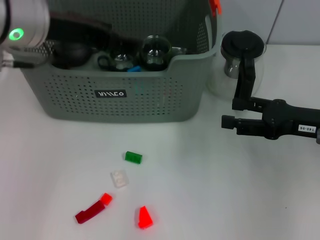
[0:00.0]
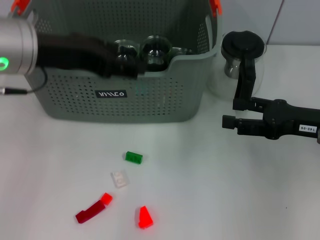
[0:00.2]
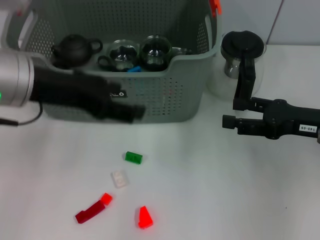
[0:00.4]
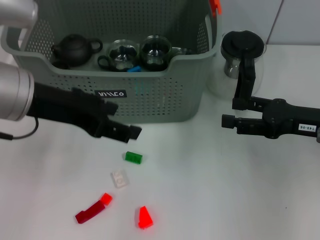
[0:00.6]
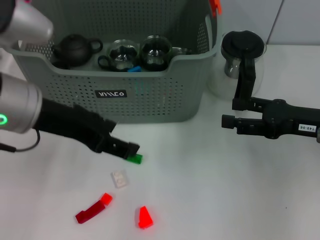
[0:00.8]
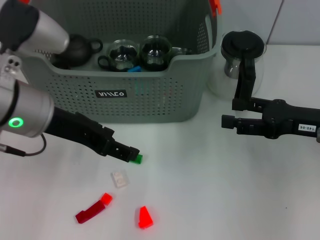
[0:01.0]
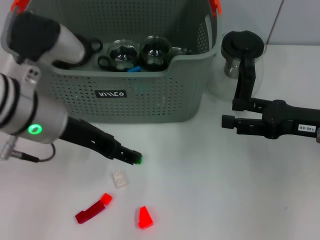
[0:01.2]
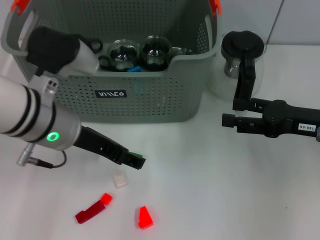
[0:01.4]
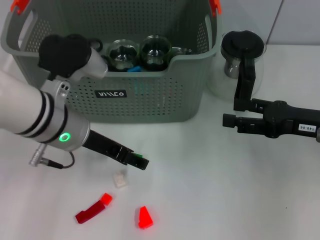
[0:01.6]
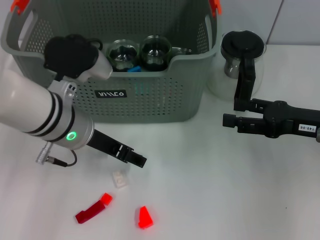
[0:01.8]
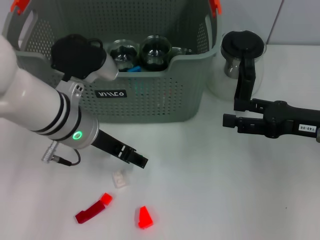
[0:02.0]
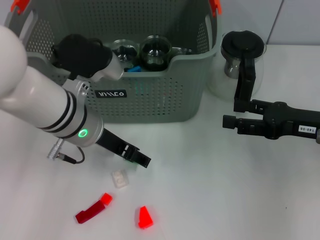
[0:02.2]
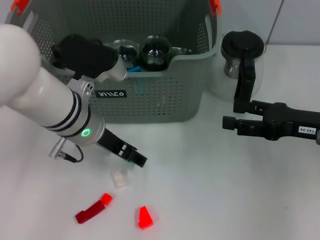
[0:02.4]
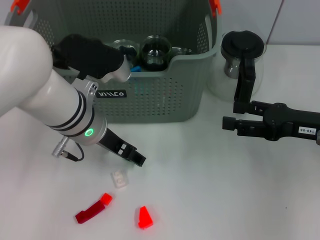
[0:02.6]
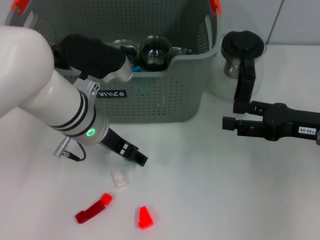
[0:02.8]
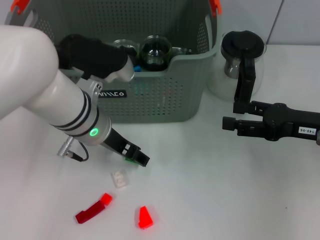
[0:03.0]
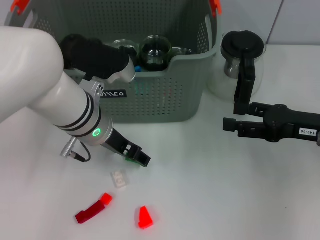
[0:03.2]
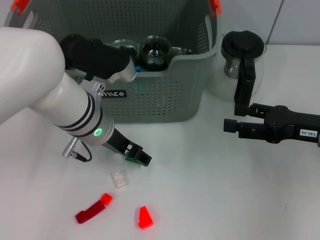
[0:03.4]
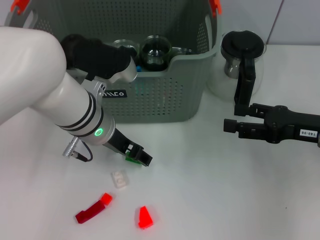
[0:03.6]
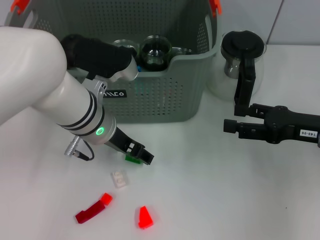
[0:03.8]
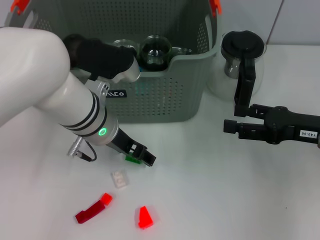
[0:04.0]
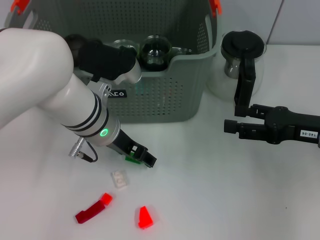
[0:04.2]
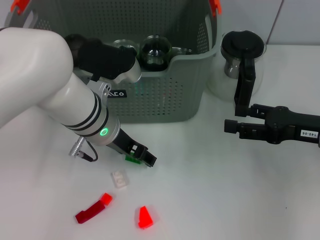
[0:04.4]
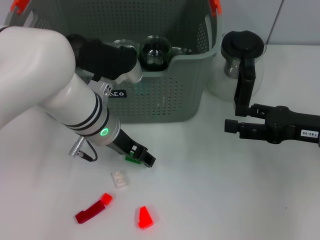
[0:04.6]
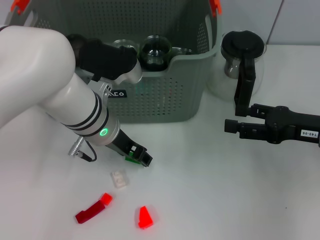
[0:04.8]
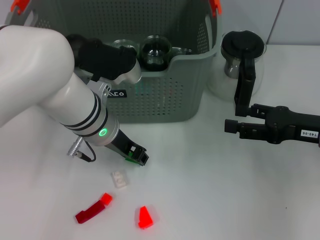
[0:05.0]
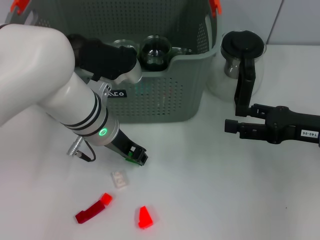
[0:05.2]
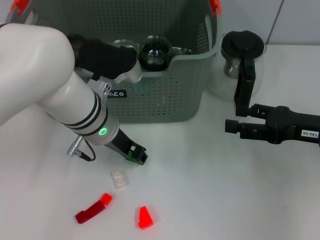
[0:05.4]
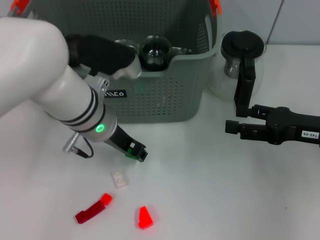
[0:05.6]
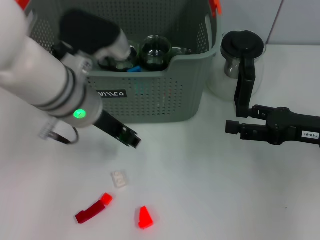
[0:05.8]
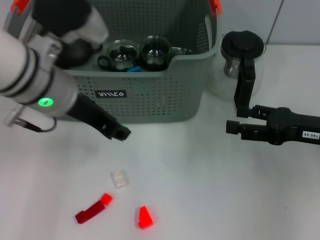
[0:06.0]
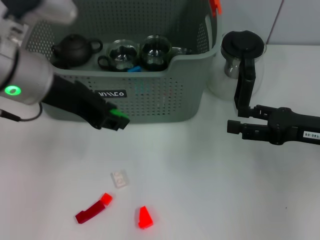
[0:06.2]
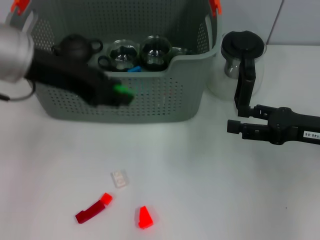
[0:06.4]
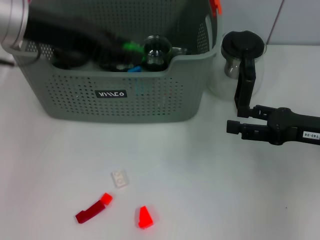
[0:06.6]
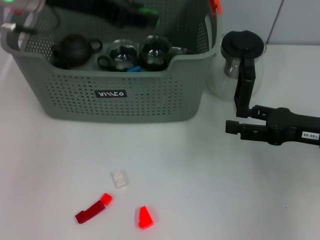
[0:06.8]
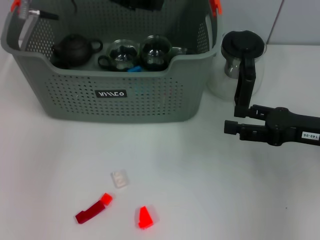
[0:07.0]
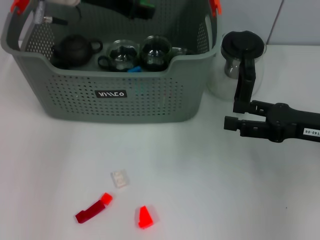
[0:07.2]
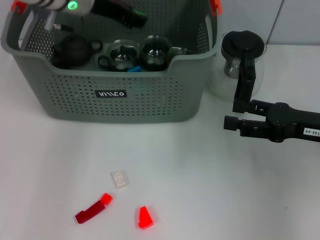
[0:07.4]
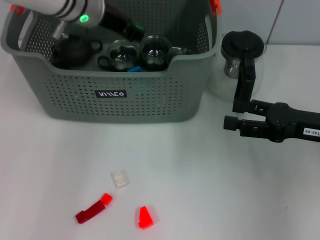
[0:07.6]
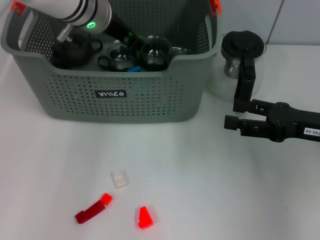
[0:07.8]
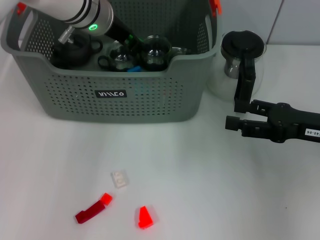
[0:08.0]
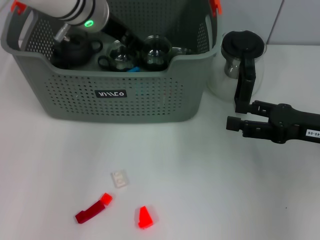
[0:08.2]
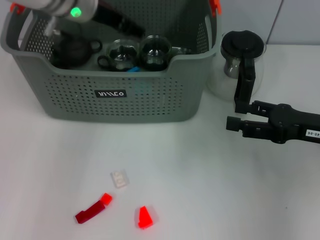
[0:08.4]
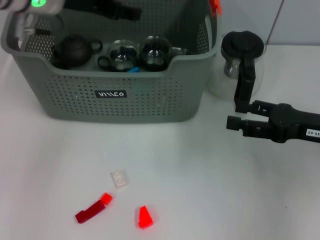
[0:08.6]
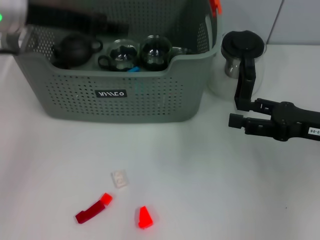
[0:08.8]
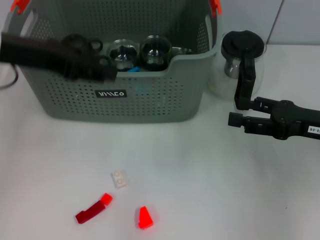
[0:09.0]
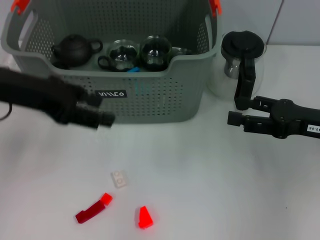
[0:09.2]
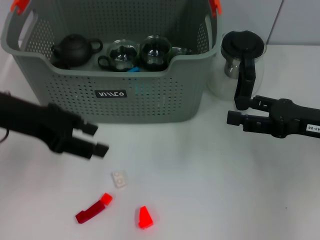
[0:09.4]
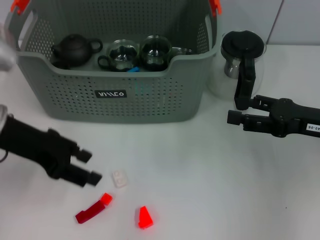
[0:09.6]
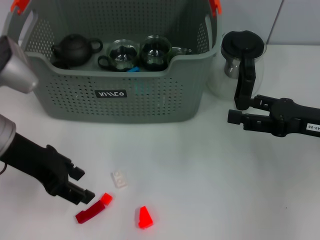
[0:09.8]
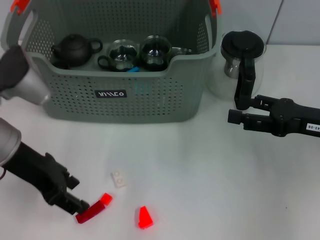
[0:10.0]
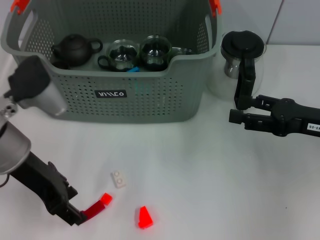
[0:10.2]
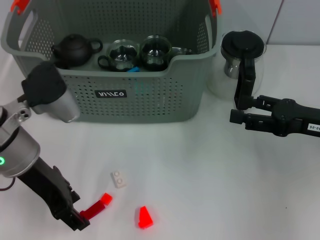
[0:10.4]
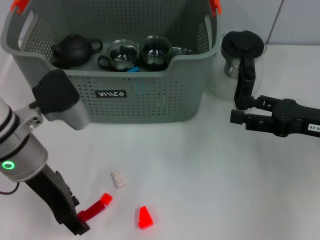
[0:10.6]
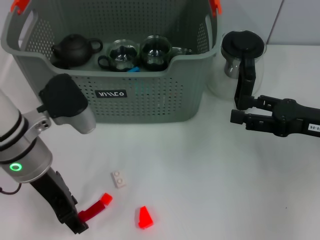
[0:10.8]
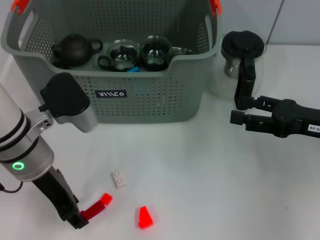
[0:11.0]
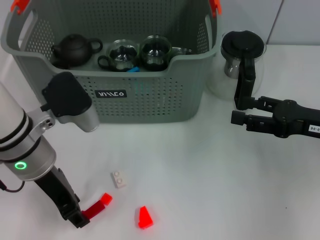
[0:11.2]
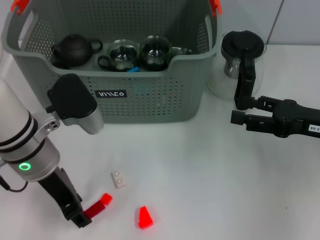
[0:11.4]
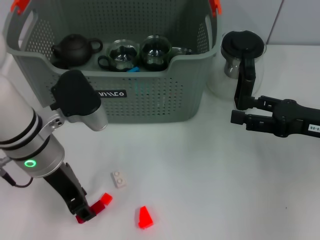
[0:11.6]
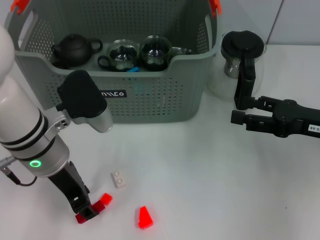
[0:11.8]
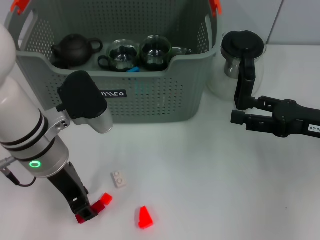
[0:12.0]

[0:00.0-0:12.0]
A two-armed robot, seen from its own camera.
Task of the whole recording: pick up the teacup on the table and place it into the storage bin, pick up the block on the table and place it into the storage bin.
0:00.0 to 0:01.6: The left gripper travels downward by approximately 10 cm.
0:01.6 to 0:04.4: The grippers make only small movements.
0:04.4 to 0:06.0: The left gripper is displaced upward by roughly 10 cm, and closes its fingers.
0:06.0 to 0:07.6: The left gripper heads forward, covering some 15 cm.
0:07.6 to 0:09.0: The left gripper heads backward and to the left, covering approximately 15 cm.
0:09.0 to 0:10.4: The left gripper is displaced downward by some 10 cm.
0:10.4 to 0:12.0: The grippers make only small movements.

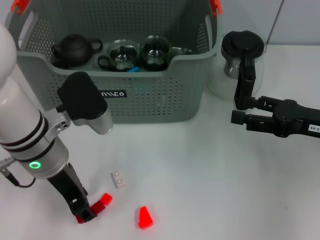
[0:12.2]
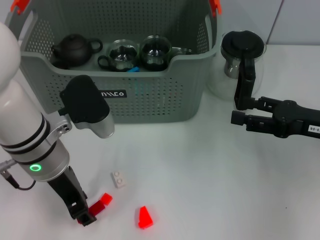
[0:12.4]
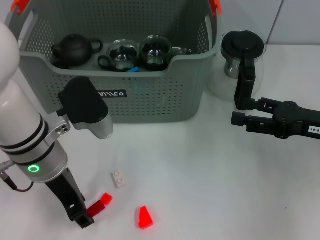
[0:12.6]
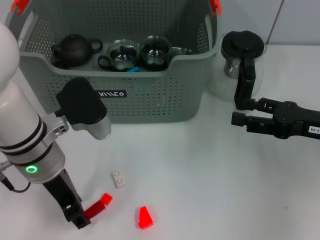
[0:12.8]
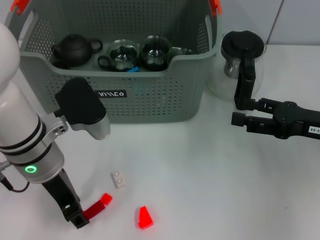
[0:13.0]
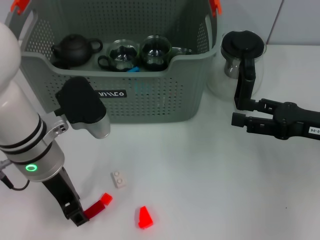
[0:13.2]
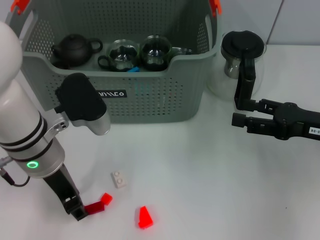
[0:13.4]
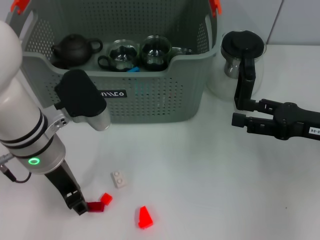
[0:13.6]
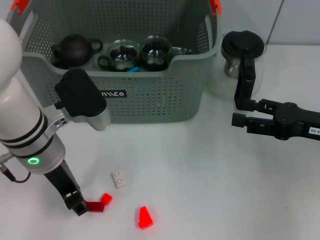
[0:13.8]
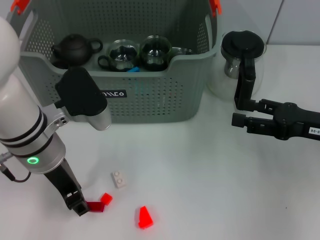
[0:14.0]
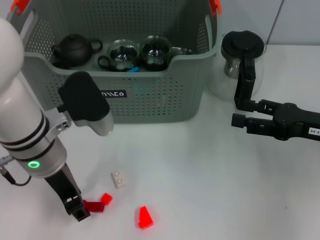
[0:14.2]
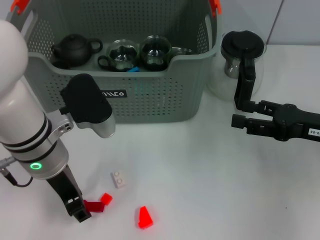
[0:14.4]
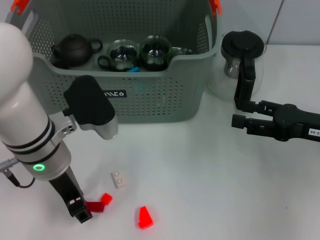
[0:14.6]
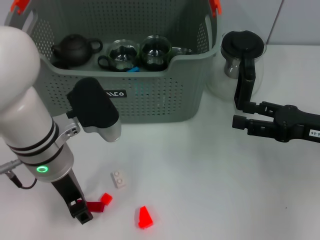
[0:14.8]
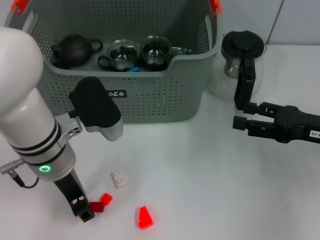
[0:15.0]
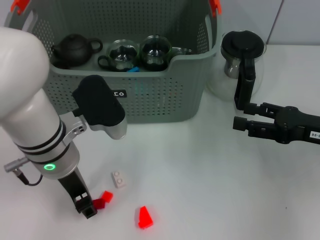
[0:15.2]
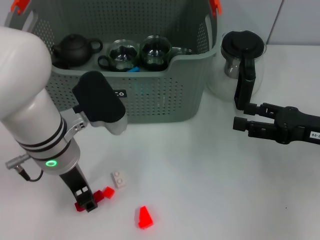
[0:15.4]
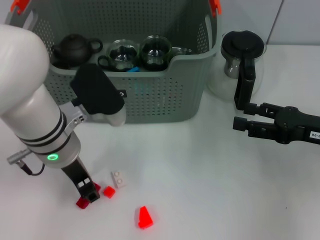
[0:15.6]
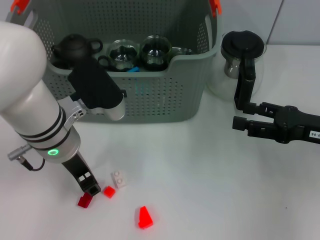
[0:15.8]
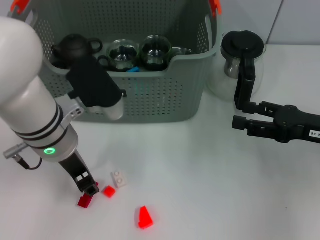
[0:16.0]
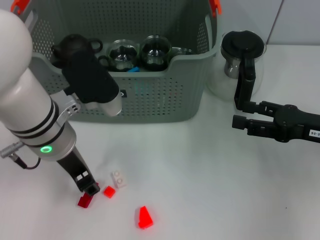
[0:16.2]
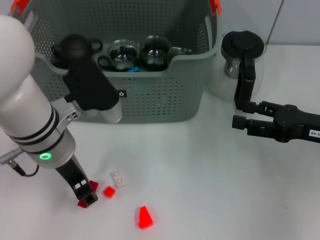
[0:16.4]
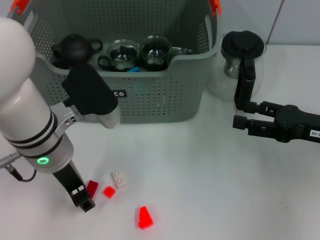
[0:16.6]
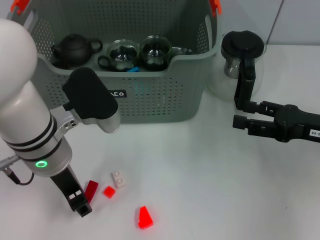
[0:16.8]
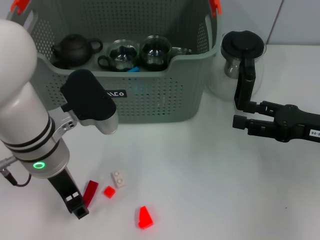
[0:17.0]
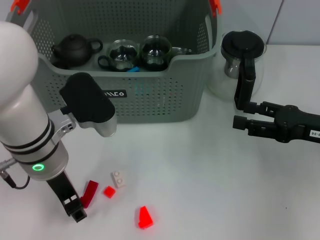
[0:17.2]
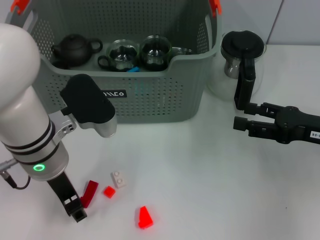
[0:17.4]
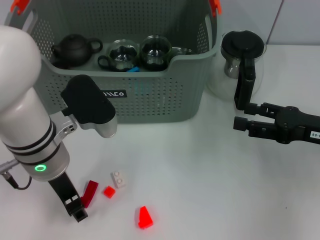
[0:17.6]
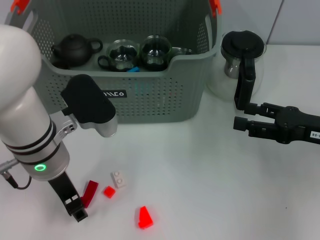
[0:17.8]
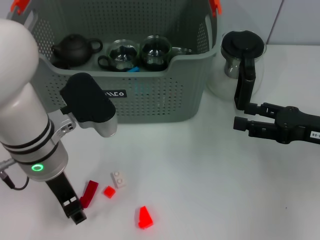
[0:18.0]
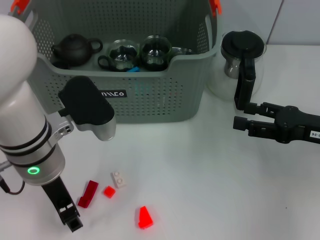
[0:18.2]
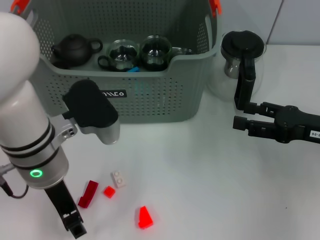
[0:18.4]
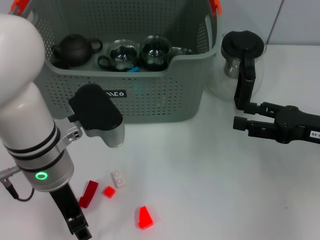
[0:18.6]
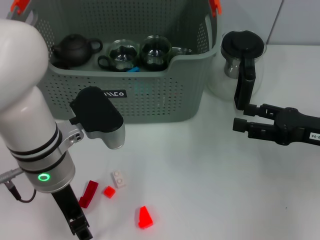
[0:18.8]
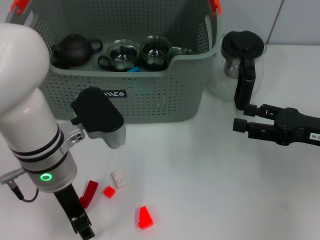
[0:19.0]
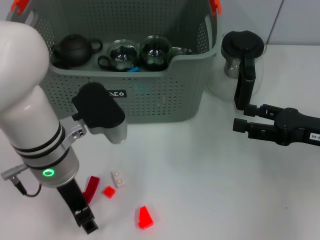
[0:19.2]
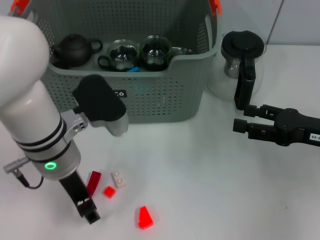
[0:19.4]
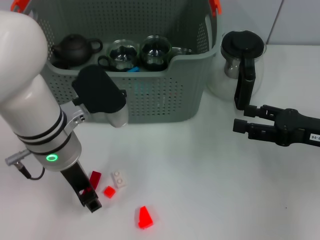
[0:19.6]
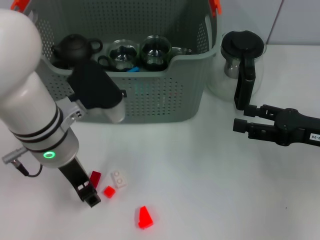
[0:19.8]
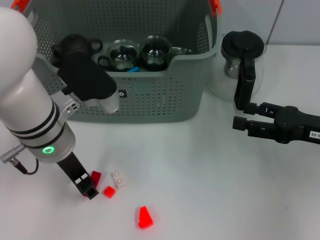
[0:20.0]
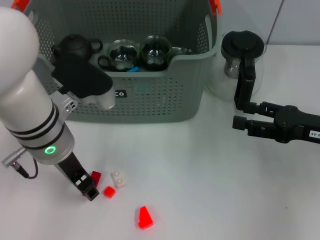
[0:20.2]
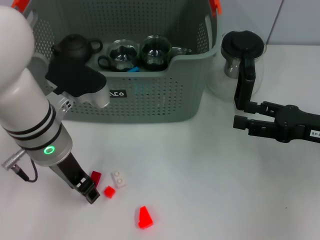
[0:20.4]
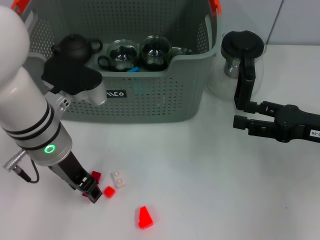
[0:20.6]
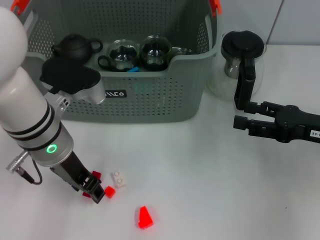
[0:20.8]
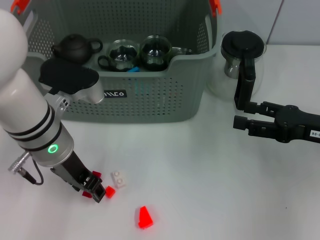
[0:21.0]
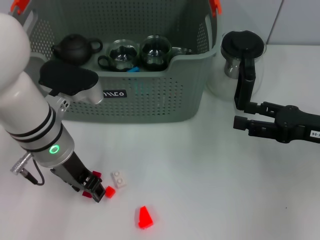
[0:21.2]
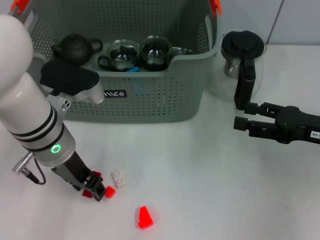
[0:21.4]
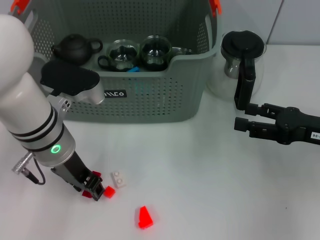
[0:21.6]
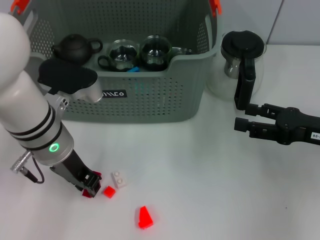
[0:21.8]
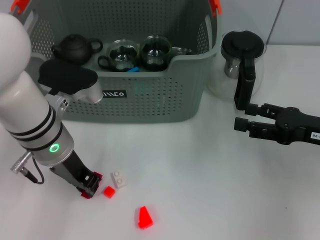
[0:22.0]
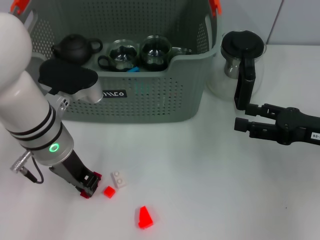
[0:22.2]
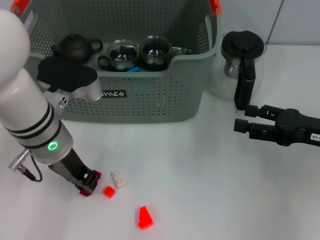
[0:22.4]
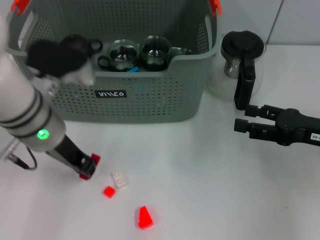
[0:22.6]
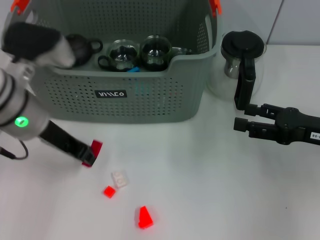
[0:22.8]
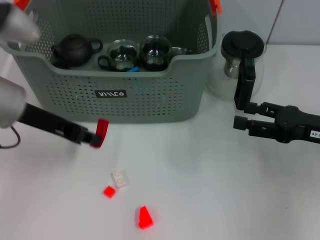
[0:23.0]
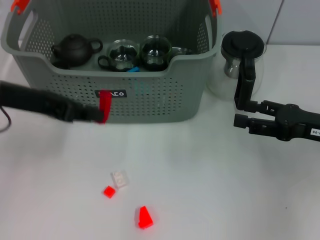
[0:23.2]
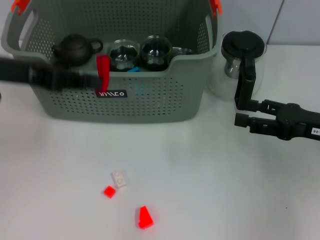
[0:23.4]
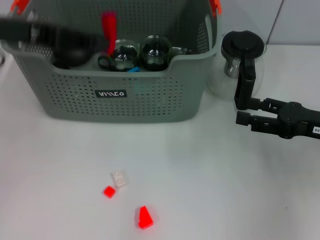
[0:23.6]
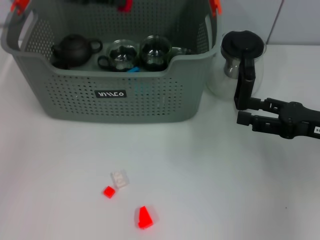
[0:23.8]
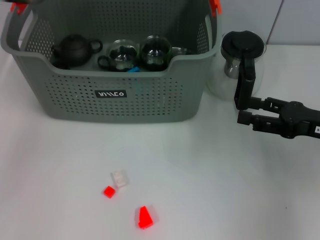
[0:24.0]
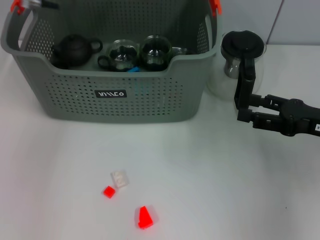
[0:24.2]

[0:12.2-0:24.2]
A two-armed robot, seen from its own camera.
Task of the whole recording: pick up the teacup on the table and place it into the storage bin, pick up the block on the table and place it into the storage bin.
0:12.2 to 0:13.8: Both grippers stay put.
0:13.8 to 0:19.8: The grippers move only a little.
0:21.2 to 0:22.6: The left gripper closes its fingers.
0:22.6 to 0:24.2: The left gripper shifts some 15 cm forward and upward.
